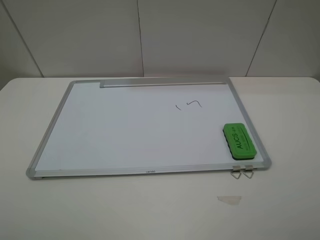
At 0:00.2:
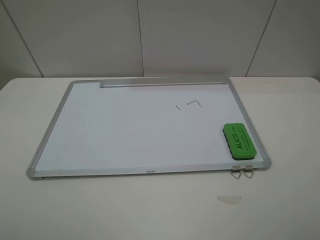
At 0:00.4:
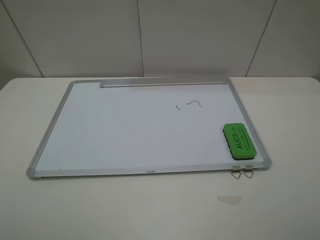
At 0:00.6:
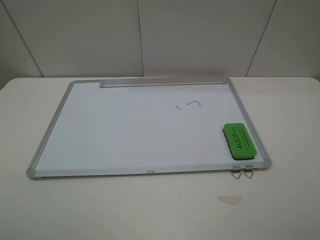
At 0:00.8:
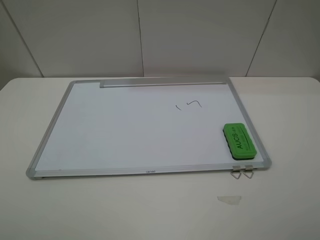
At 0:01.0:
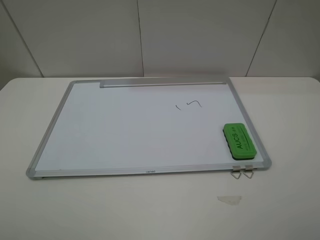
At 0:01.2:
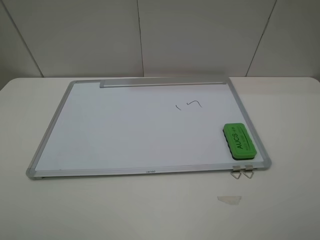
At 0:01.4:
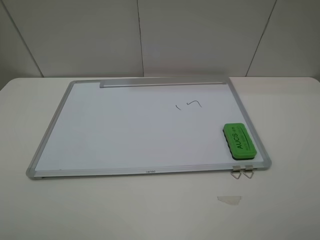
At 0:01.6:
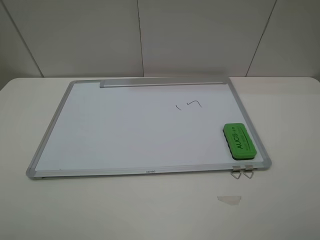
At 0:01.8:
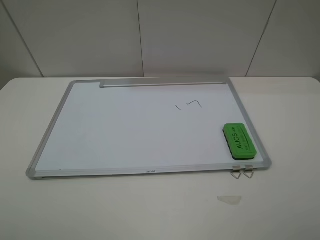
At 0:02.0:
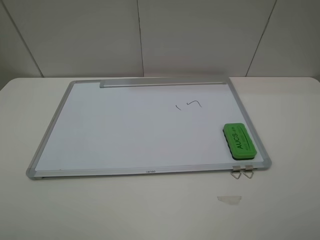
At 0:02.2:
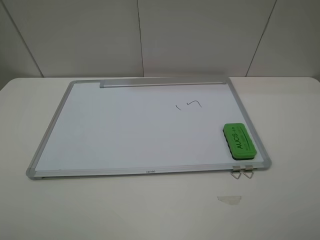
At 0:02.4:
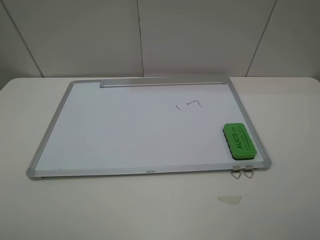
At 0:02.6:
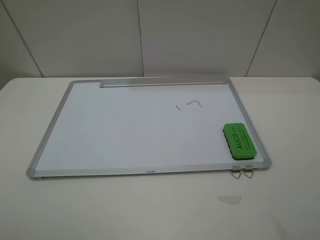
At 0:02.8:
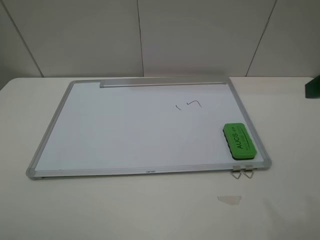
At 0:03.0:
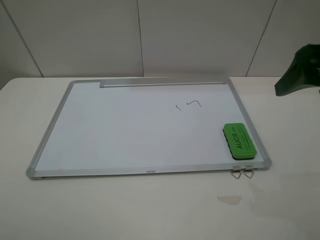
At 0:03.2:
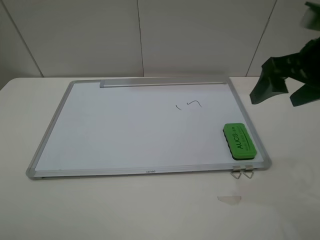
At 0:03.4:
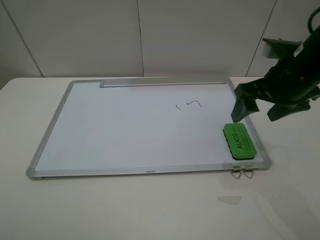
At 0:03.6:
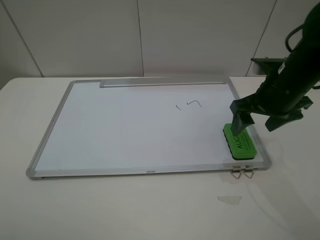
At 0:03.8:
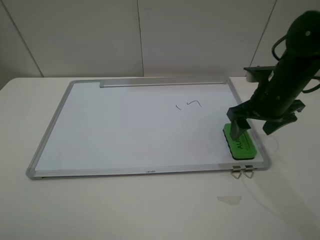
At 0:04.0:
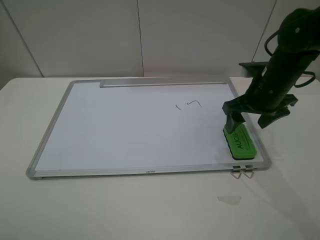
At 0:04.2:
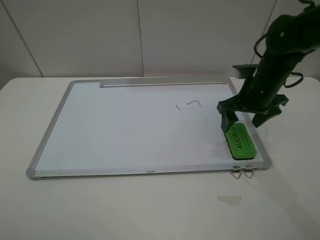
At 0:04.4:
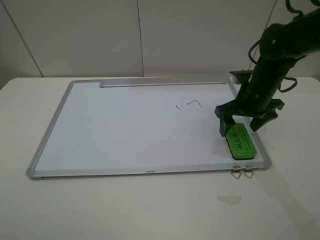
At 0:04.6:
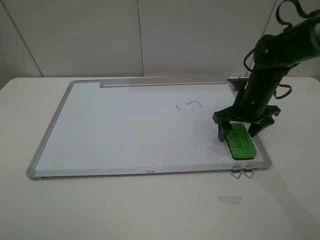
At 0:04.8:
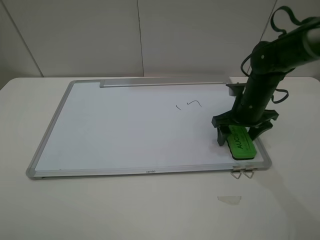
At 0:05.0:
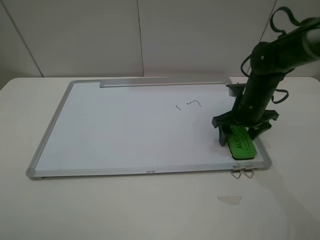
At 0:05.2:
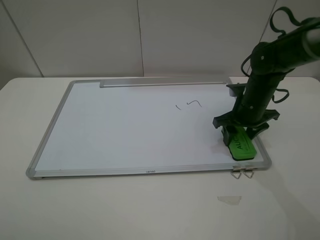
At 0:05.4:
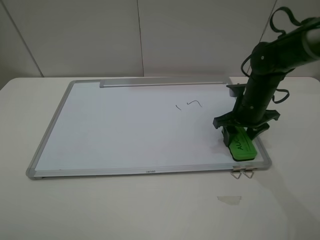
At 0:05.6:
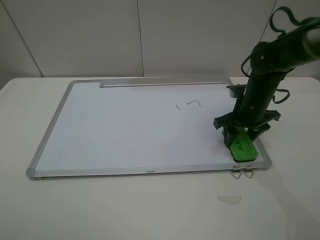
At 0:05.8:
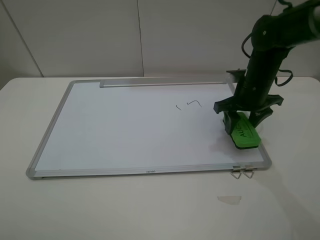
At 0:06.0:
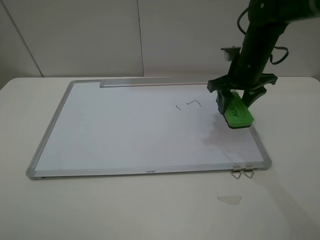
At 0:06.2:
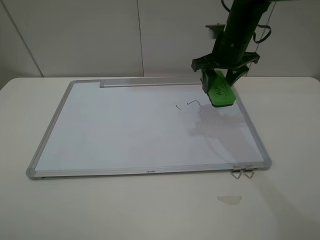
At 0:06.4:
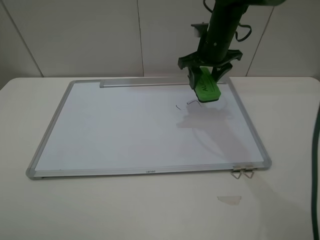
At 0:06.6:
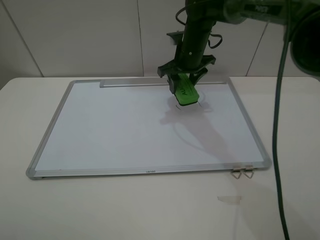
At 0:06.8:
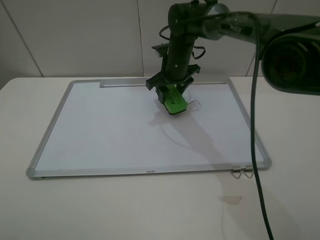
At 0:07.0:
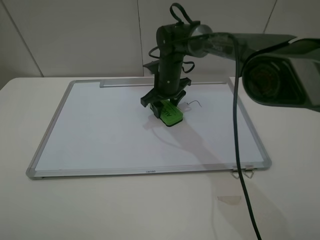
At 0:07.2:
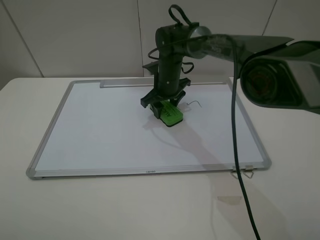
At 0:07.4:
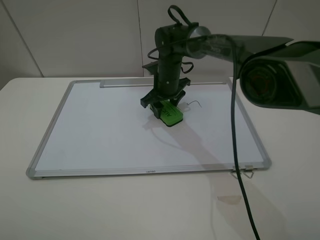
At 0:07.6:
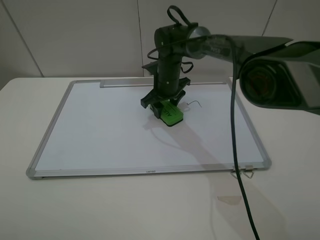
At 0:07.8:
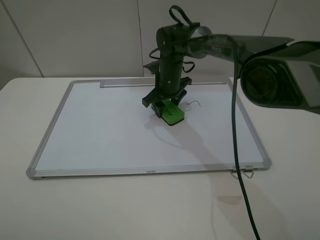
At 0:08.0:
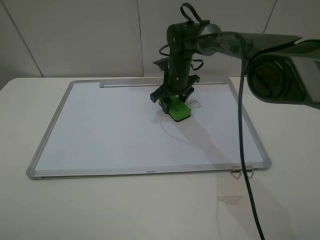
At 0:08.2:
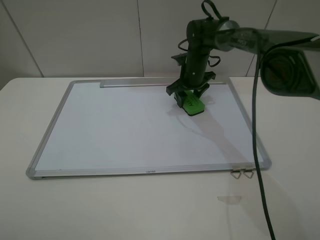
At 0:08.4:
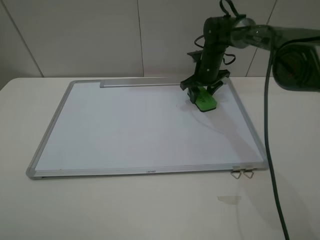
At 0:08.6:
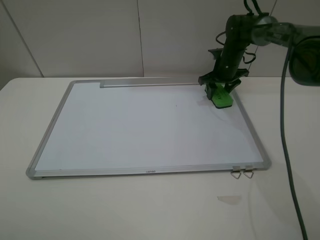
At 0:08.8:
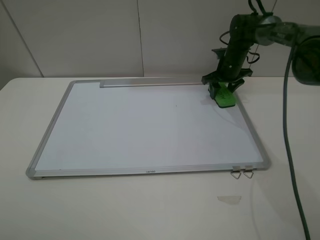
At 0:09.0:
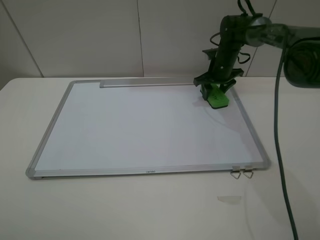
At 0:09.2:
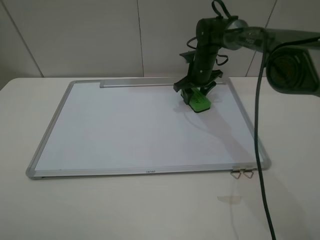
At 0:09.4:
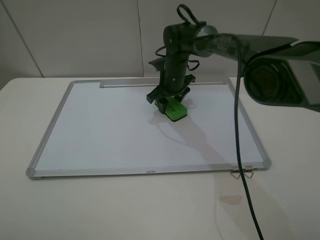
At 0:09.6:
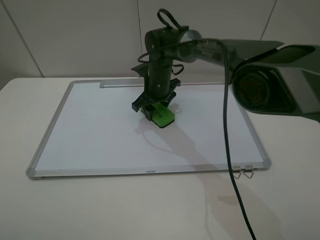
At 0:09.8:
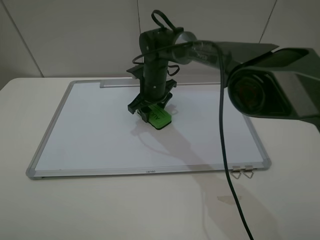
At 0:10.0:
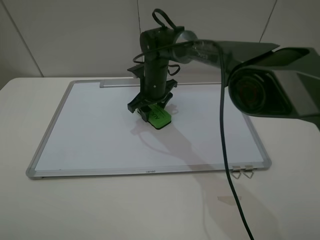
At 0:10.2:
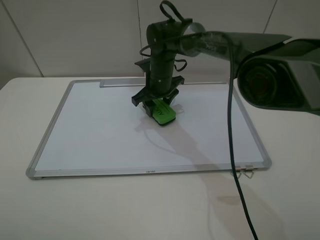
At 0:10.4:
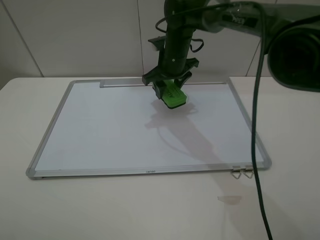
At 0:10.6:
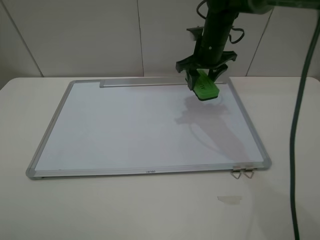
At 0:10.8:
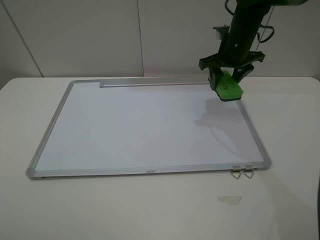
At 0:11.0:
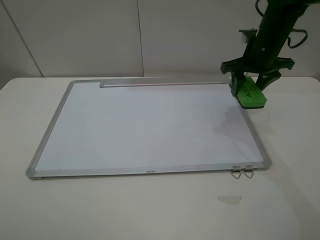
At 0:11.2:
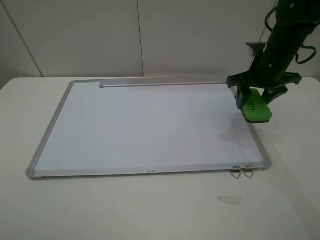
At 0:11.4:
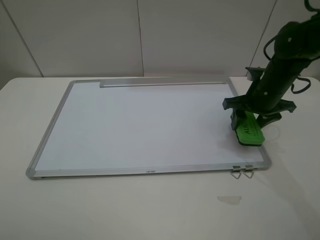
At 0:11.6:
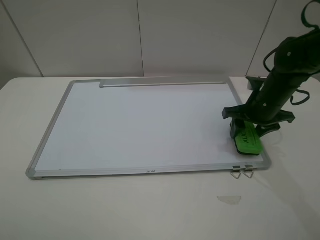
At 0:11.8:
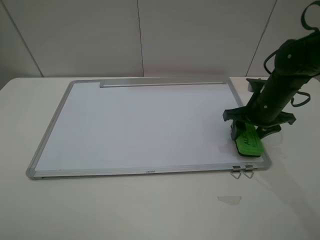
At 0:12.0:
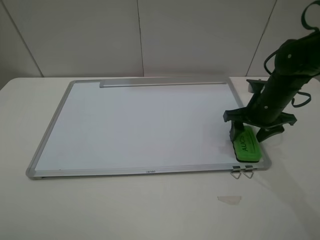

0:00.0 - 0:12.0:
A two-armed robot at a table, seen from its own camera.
Step, 0:00.0 - 0:05.4: Grasp the eraser with the right gripper.
Step, 0:05.6 - 0:10.0: Grasp the eraser and wipe the blackboard with the right gripper.
0:00.0 - 0:01.6: The two grippers keep their place.
0:01.6 - 0:03.0: The right gripper moves forward, some 20 cm.
0:03.0 - 0:04.4: The right gripper travels downward and forward by about 20 cm.
0:04.4 - 0:06.0: The right gripper shifts about 5 cm upward, and closes.
0:06.0 - 0:07.6: The right gripper moves to the left, downward and forward, approximately 20 cm.
0:07.6 - 0:09.0: The right gripper heads to the right, covering approximately 15 cm.
0:09.0 - 0:10.4: The right gripper shifts about 15 cm to the left, upward and backward.
0:10.4 - 0:12.0: The right gripper heads to the right and backward, covering about 20 cm, and opens.

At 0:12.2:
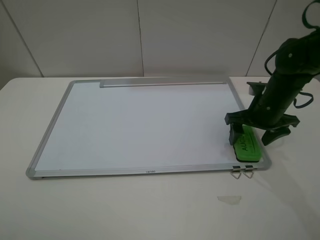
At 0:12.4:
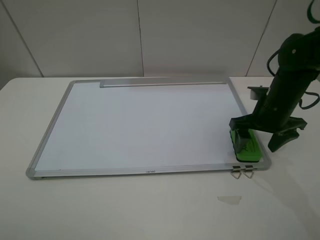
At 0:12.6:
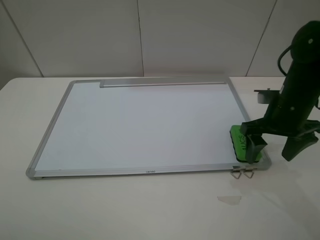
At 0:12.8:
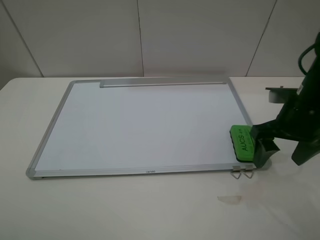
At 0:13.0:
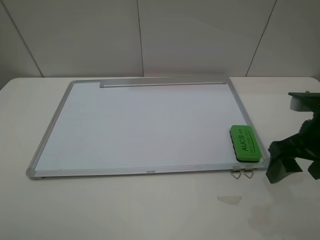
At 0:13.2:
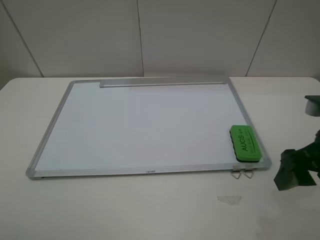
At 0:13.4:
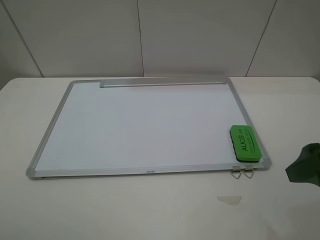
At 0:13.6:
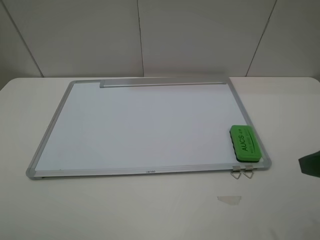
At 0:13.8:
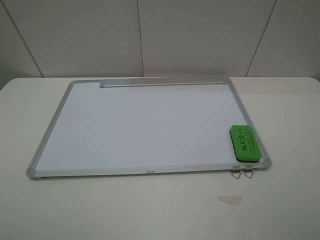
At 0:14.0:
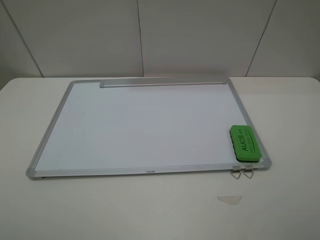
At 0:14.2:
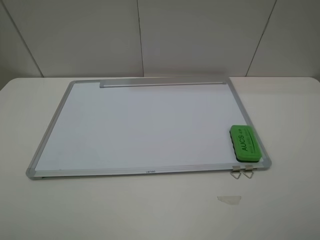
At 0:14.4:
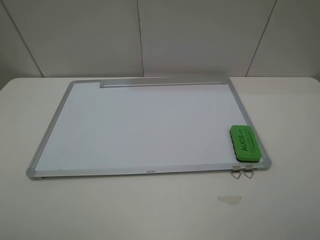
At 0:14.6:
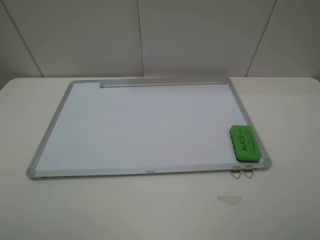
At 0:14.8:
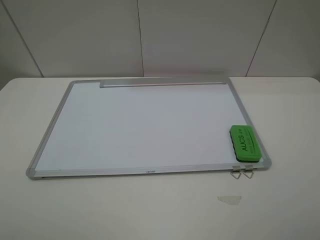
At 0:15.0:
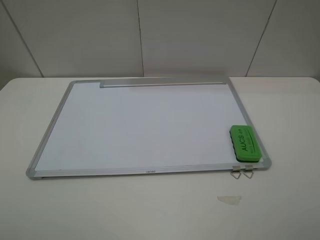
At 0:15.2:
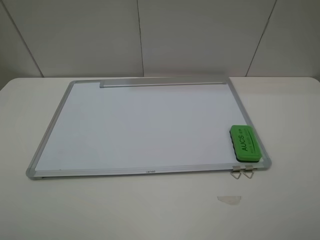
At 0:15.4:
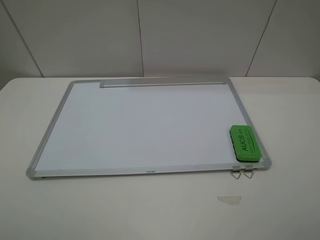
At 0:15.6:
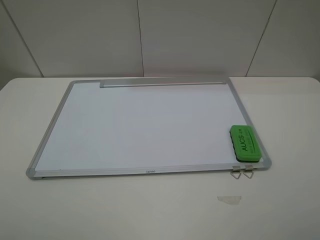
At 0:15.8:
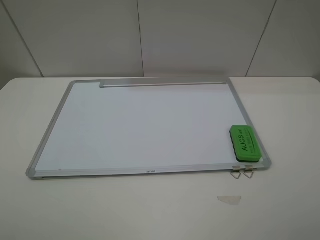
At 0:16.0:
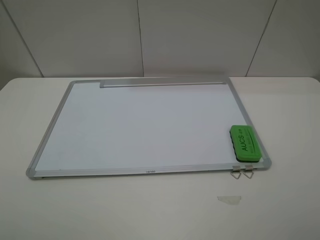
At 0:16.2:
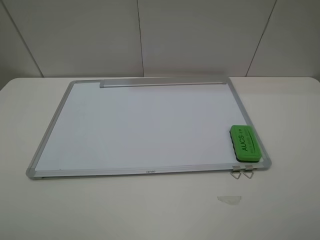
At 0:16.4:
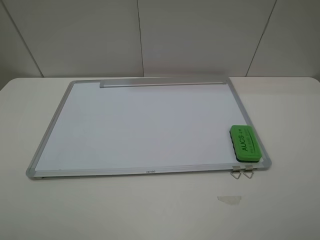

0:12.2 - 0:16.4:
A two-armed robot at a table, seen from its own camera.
0:12.2 - 0:13.6: The right gripper heads backward and upward, covering roughly 25 cm.
0:15.0 - 0:16.4: Both grippers stay about where they are.
